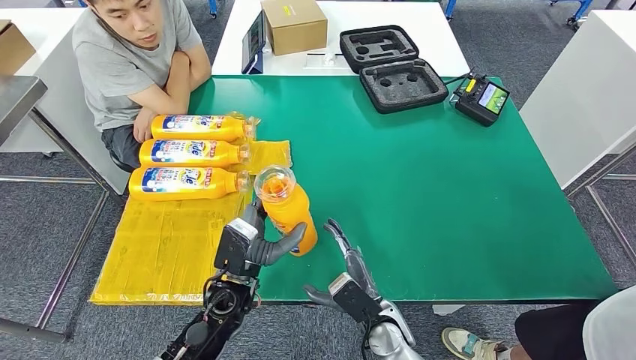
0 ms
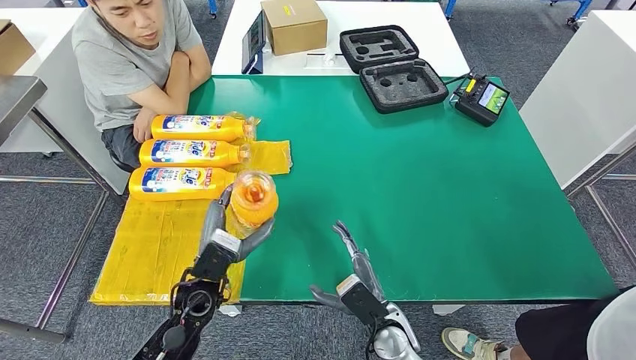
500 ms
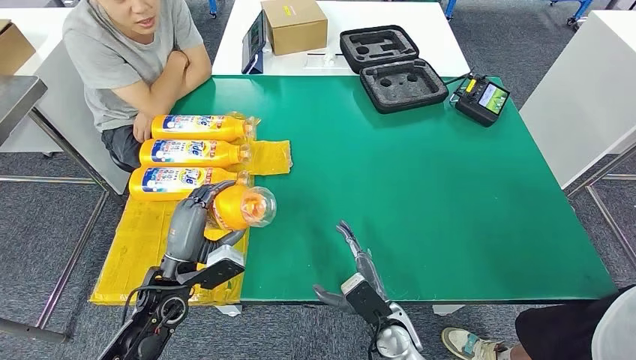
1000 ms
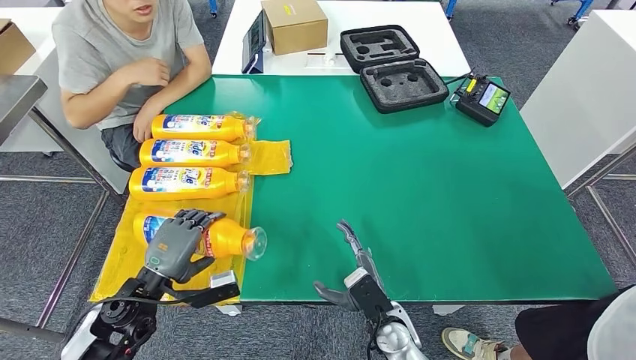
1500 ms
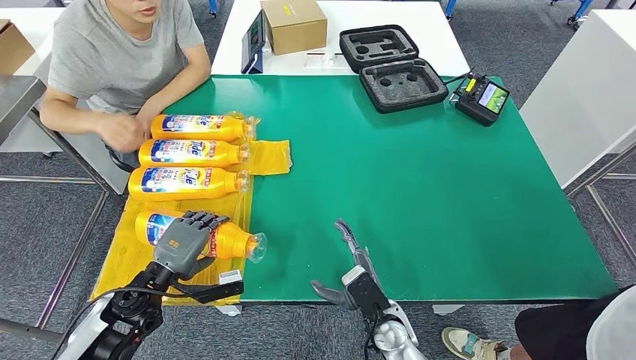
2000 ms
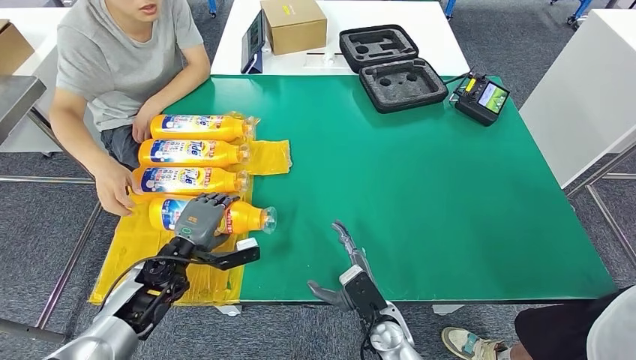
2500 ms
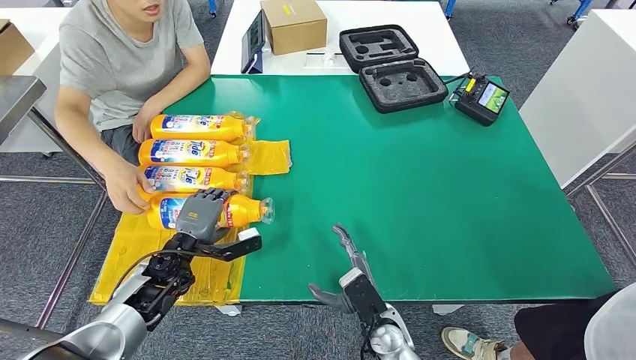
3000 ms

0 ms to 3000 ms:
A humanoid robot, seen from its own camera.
Step, 0 ms to 3000 ms: Flip the fast-moving consumer goods bottle to the front side.
0 ms to 1500 ms: The left hand shifts roughly 15 cm to the left.
1500 ms to 3000 ms: The left hand is displaced forward by approximately 10 cm.
